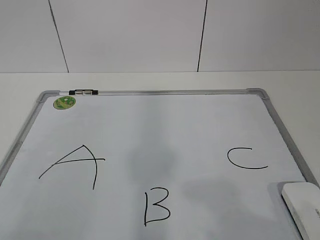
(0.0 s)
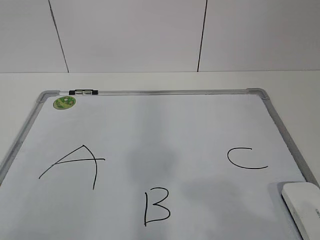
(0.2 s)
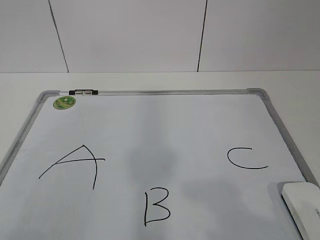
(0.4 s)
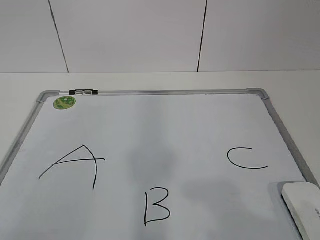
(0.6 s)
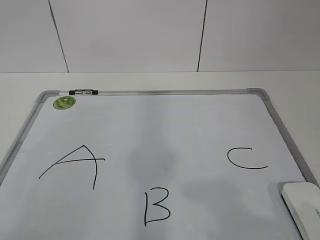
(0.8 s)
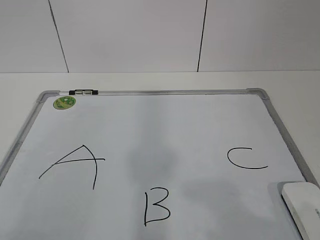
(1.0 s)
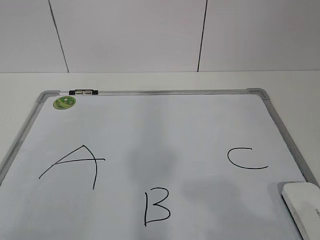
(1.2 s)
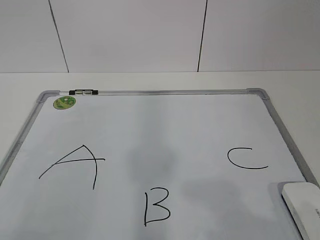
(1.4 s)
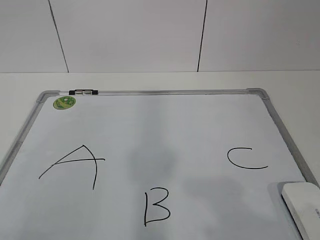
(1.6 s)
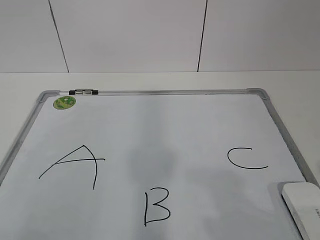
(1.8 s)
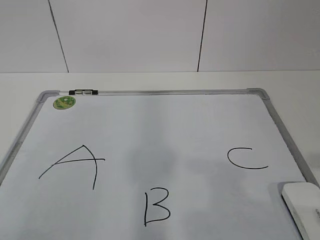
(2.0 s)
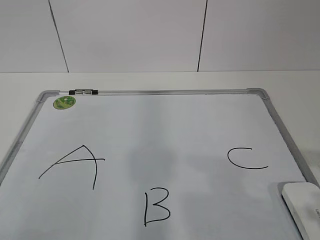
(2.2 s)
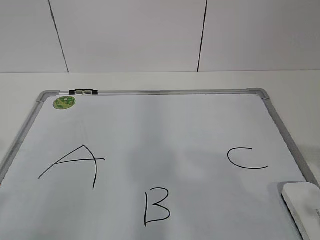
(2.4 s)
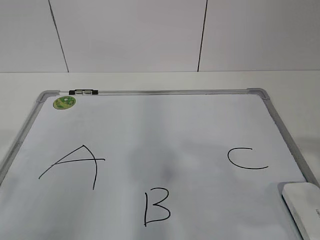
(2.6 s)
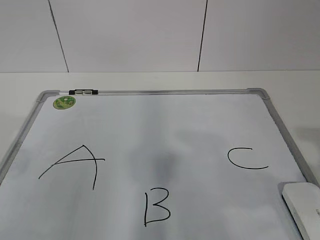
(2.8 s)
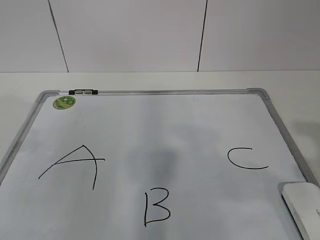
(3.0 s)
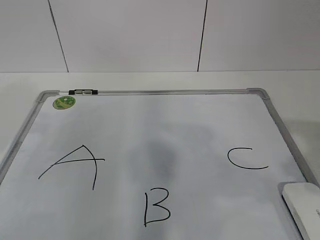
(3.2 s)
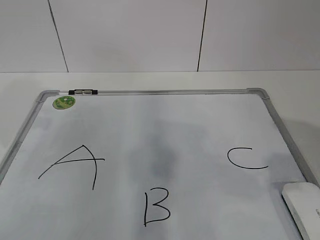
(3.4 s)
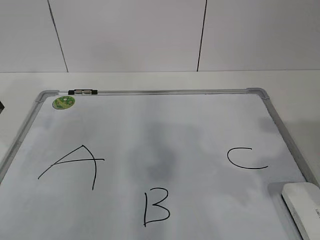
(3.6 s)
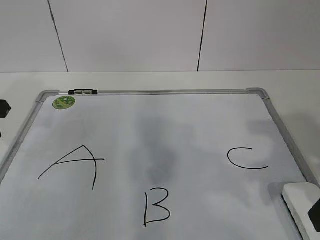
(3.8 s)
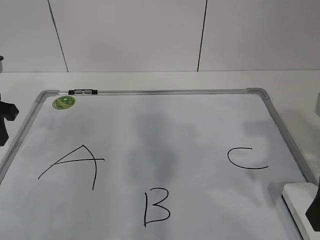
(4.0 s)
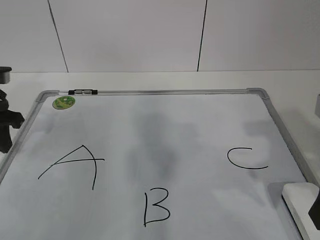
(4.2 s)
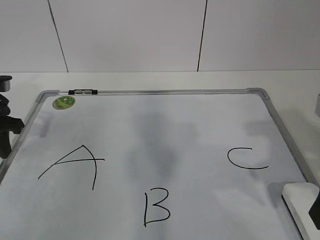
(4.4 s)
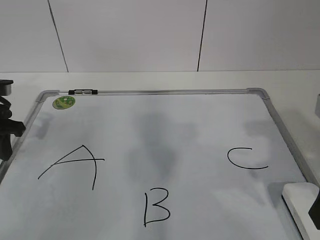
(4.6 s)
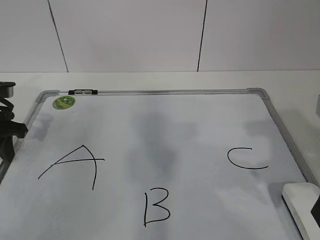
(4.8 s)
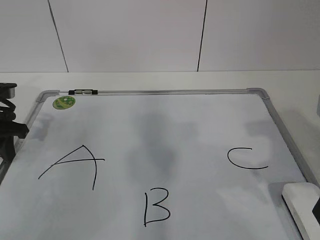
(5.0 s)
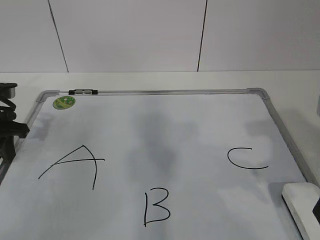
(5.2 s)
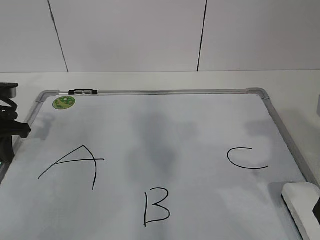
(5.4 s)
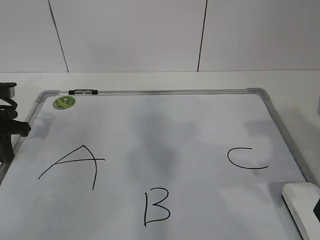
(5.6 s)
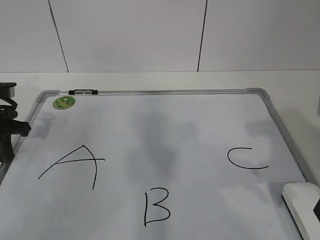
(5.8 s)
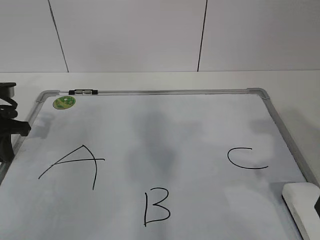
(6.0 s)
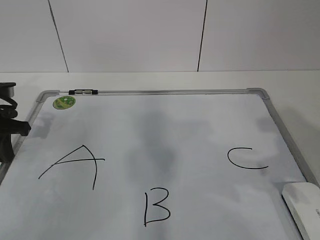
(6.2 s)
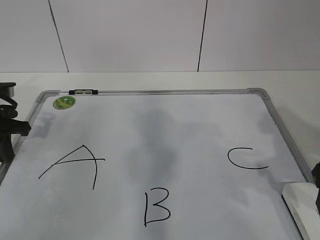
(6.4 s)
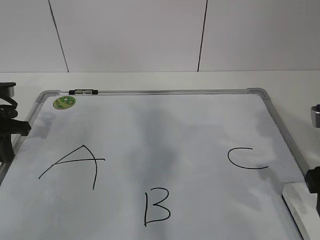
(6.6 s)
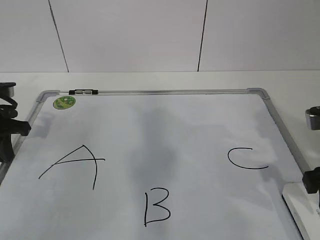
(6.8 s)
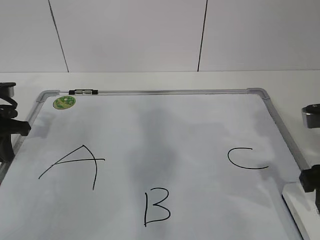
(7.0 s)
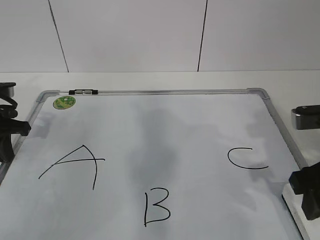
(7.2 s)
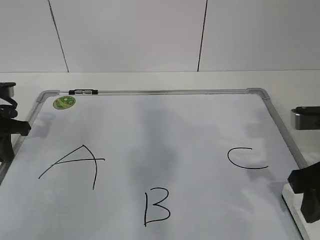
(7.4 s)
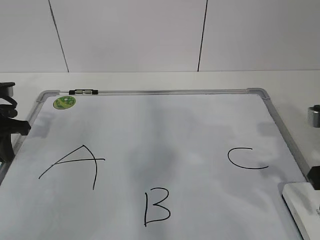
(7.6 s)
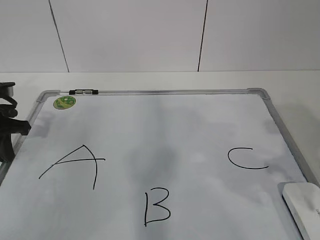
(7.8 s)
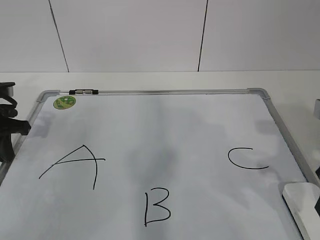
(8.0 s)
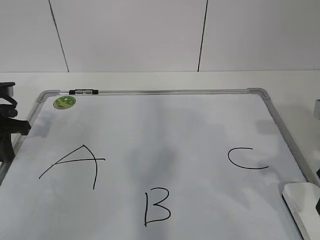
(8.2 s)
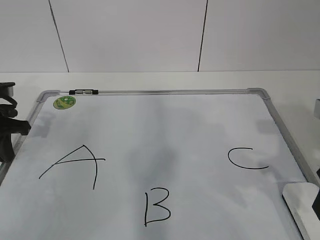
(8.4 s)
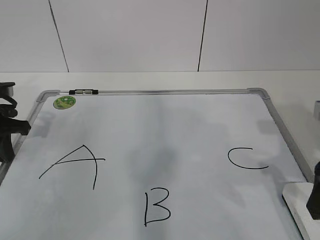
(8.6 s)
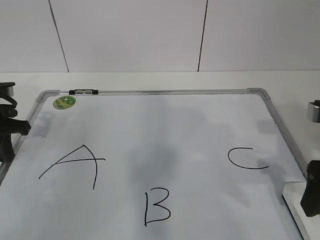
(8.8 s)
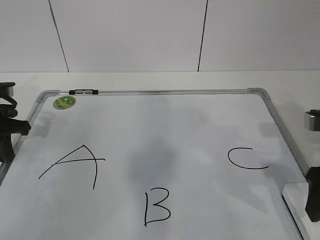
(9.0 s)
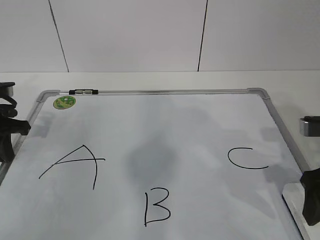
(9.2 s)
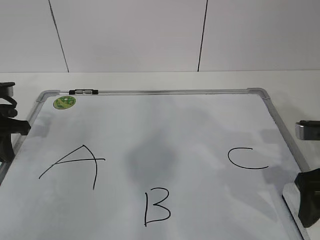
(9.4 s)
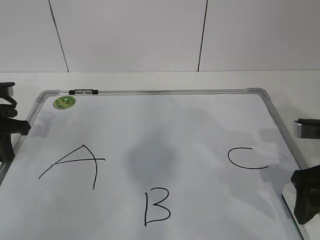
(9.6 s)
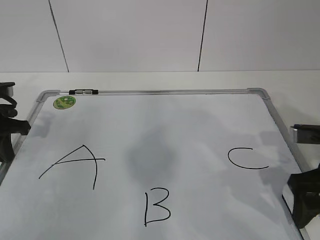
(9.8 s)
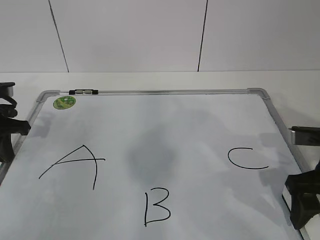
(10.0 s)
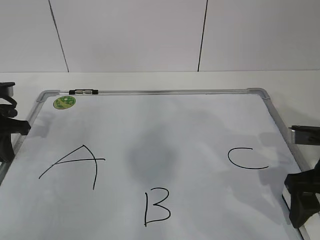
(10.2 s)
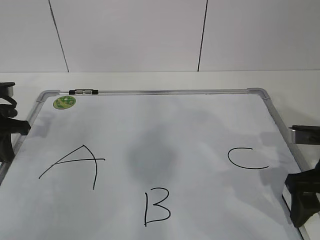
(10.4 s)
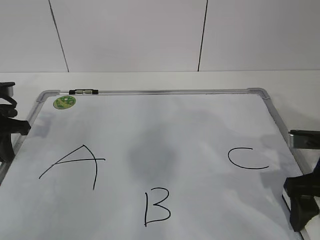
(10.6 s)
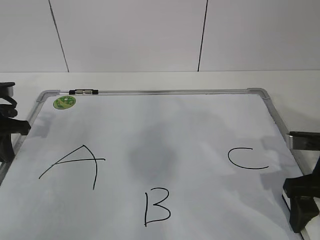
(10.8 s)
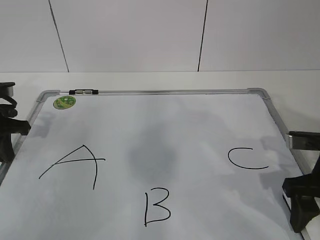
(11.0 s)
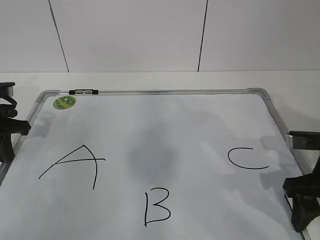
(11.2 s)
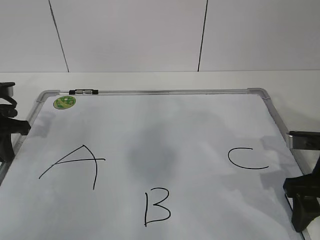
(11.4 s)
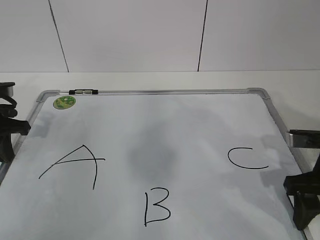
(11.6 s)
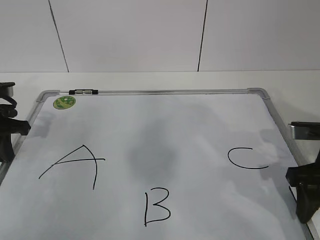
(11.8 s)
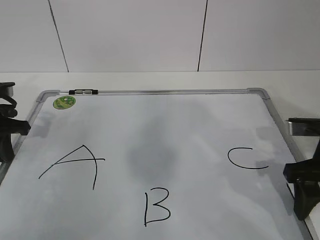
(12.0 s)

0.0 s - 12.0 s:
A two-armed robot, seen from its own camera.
Task of the whole recording: pick up the eraser on the blackboard and erase the letter "B".
Step, 0.0 s - 4.4 s: Hold the drawing board steady with your left hand.
Step, 4.6 s - 9.4 s: Grab the eraser with your right hand.
1.6 s - 3.0 s: The left gripper heads forward, covering approximately 20 cm, while the right gripper moves forward, approximately 10 cm.
3.0 s - 4.4 s: The left gripper is displaced forward and downward by some 15 cm; the right gripper travels forward and to the left by approximately 10 cm.
4.4 s - 6.0 s: The left gripper closes.
6.0 s - 7.6 s: The right gripper ends up some 5 cm from where it was, and closes up.
7.6 s - 9.0 s: The right gripper opens.
9.0 s - 10.4 s: There are only small adjustments of the grippers.
10.4 s - 12.0 s: The right gripper closes up.

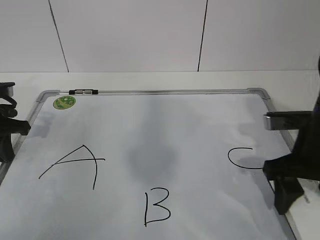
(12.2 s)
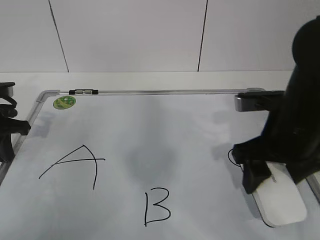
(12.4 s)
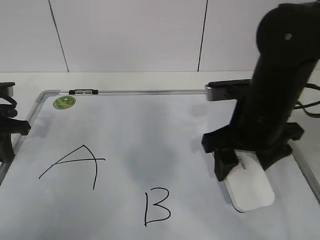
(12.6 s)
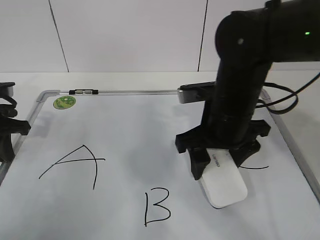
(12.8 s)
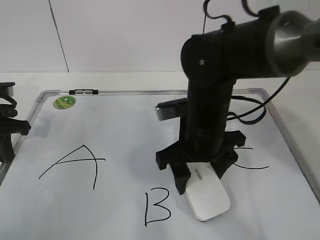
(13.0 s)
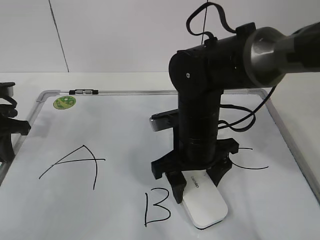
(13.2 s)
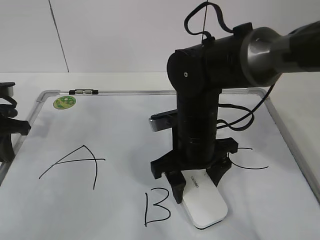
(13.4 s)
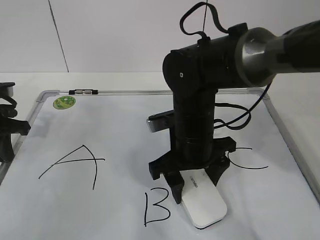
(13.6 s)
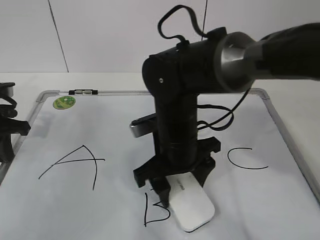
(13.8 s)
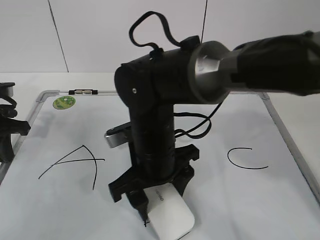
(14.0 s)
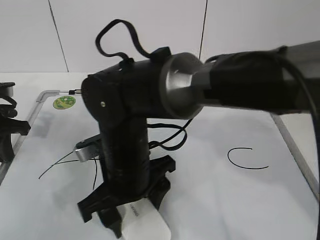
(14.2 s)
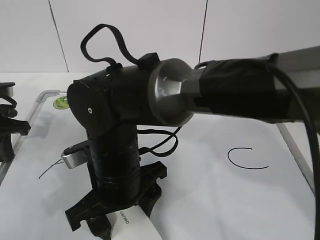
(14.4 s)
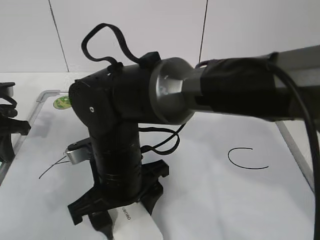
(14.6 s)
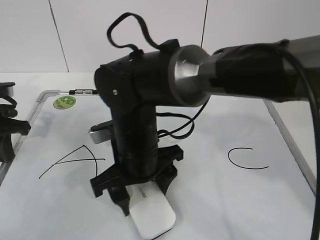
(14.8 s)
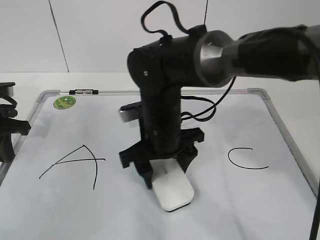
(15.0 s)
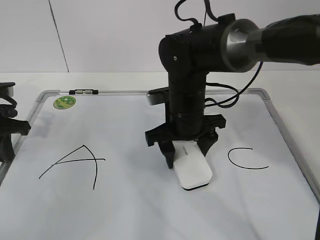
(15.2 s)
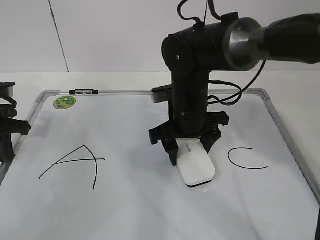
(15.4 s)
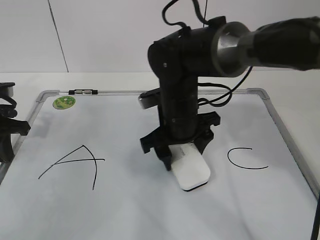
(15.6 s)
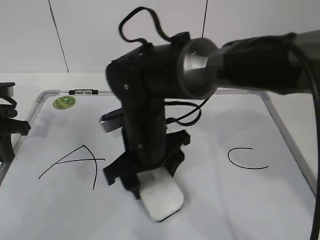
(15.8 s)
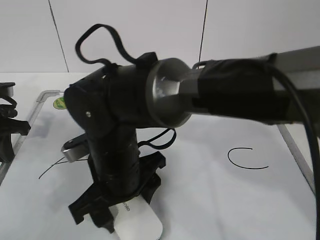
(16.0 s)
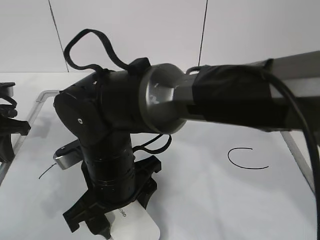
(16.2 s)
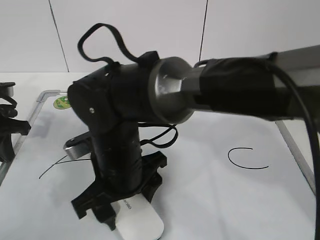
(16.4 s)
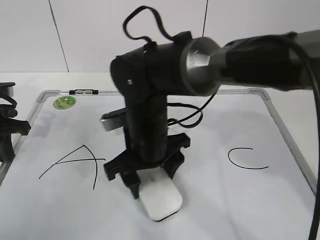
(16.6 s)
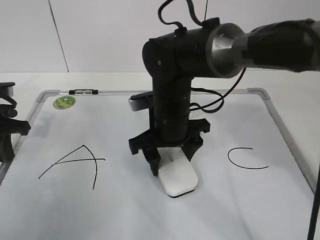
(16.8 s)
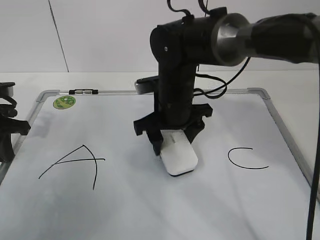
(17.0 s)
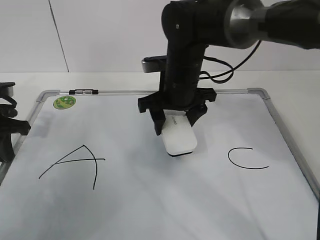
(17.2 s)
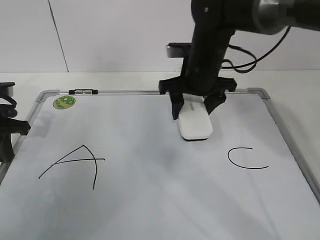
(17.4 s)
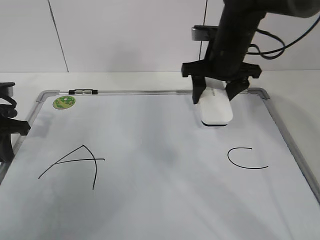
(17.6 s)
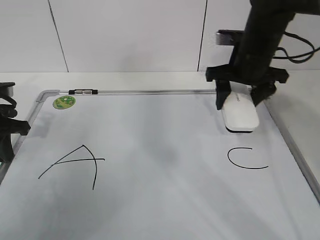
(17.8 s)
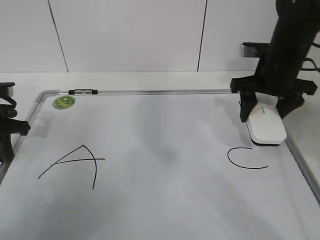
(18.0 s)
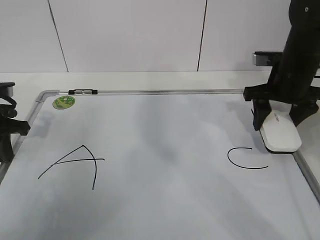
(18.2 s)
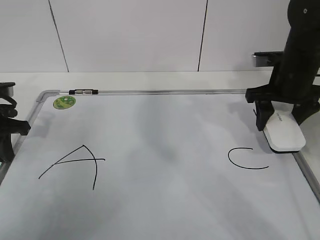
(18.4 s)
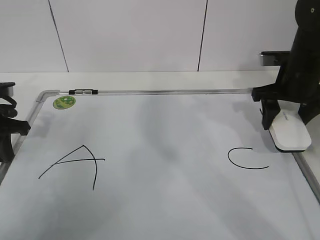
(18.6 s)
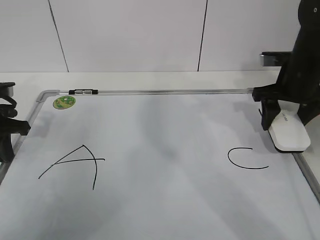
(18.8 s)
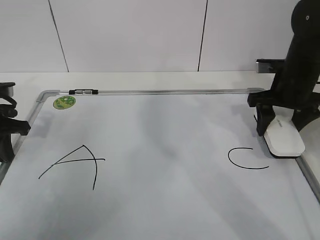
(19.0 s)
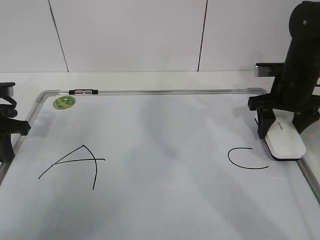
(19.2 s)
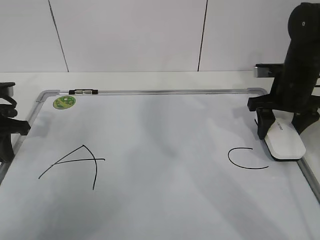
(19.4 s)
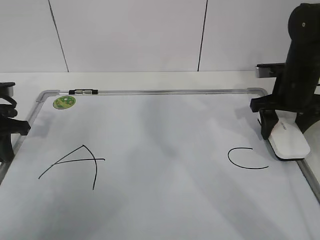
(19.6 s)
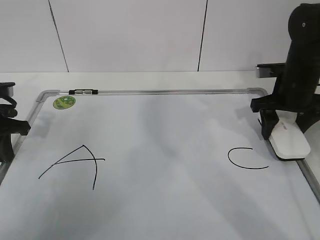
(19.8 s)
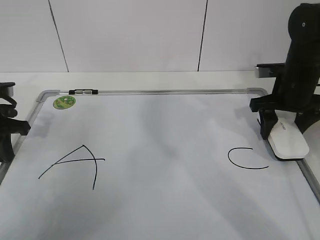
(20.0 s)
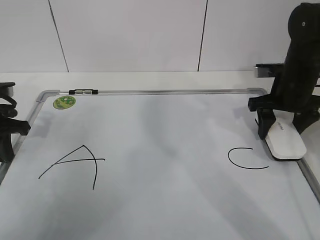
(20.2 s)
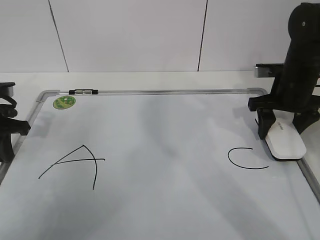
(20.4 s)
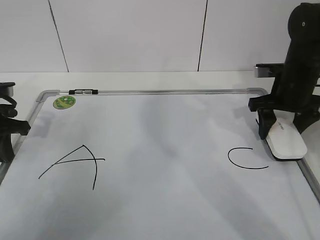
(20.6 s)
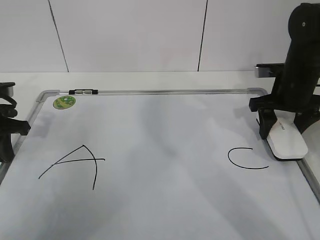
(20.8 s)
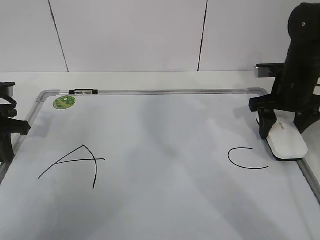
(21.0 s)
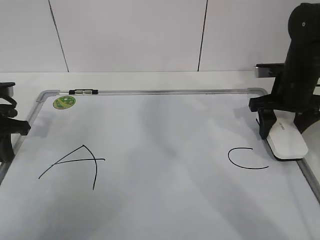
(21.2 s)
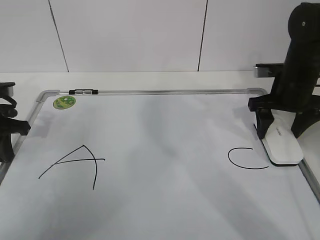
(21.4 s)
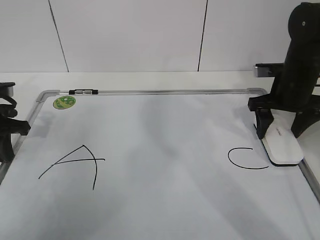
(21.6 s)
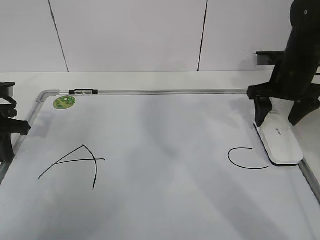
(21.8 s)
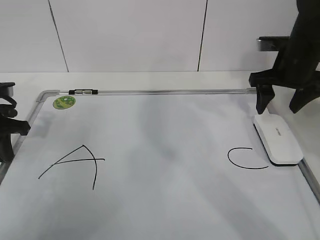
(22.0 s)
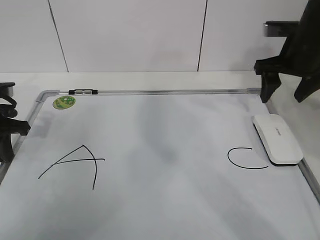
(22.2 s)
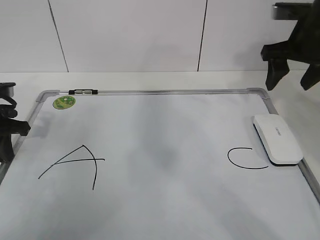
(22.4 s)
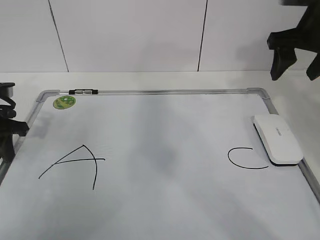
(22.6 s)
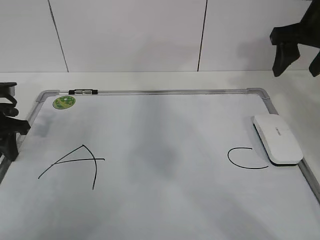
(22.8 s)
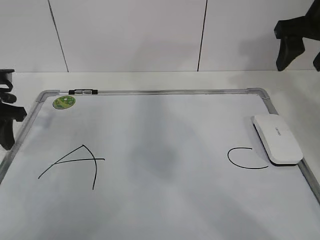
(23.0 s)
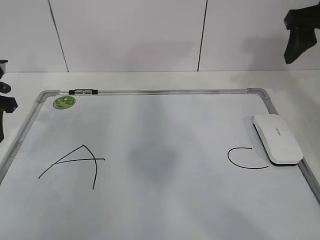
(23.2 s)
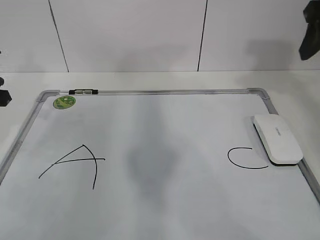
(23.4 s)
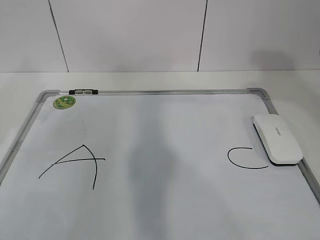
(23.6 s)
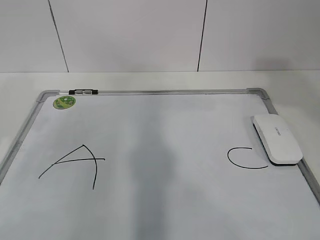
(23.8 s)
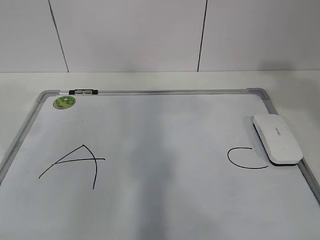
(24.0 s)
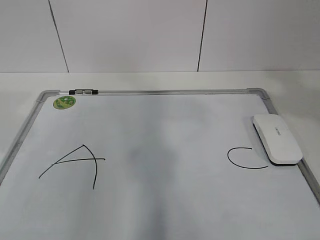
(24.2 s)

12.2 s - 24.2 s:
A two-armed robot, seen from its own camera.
Task of the whole recording: pick up the eraser on the blackboard and erase the letter "B".
Step, 14.2 s - 17.6 s: Put down the eraser with your right hand.
12.2 s - 13.8 s: The right gripper moves to the left, some 20 cm.
13.8 s - 15.2 s: The right gripper moves forward, approximately 5 cm.
15.2 s - 16.6 s: The right gripper goes about 10 cm to the left and backward.
16.6 s - 18.2 s: The right gripper shifts approximately 25 cm to the right.
18.2 s - 19.8 s: There are only small adjustments of the grippers.
19.8 s - 21.2 s: Both grippers stay about where they are.
21.2 s - 22.6 s: The right gripper goes some 10 cm upward.
22.6 s - 24.2 s: The right gripper moves backward and upward, some 25 cm. The left gripper goes some 25 cm upward and backward.
